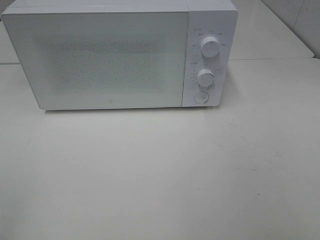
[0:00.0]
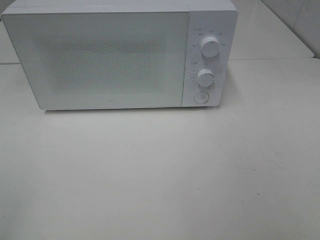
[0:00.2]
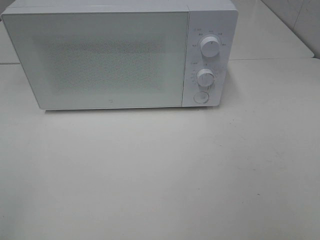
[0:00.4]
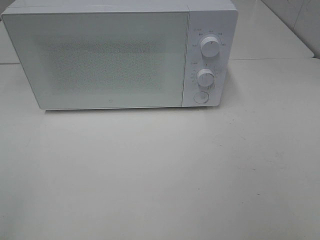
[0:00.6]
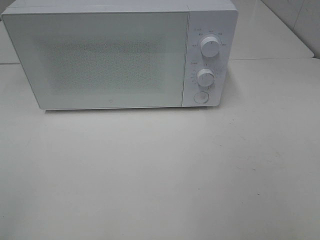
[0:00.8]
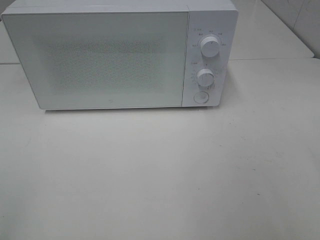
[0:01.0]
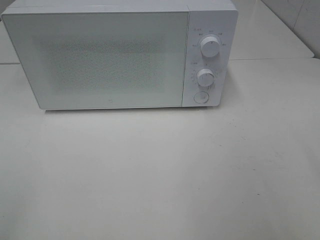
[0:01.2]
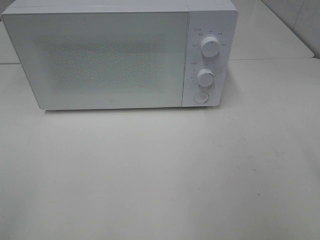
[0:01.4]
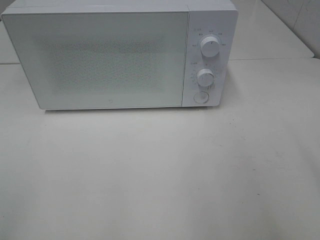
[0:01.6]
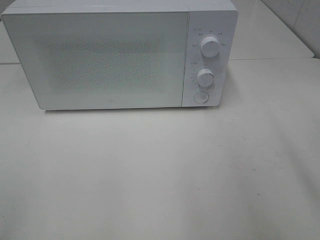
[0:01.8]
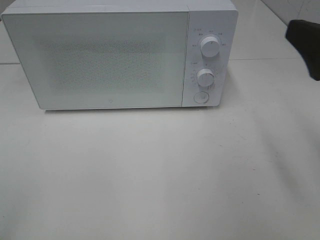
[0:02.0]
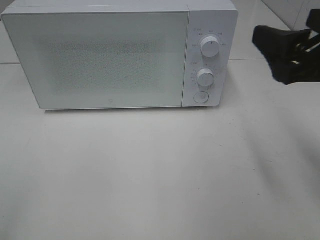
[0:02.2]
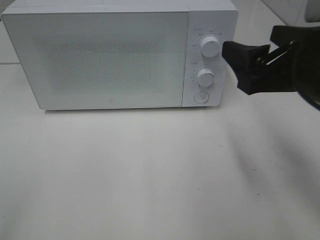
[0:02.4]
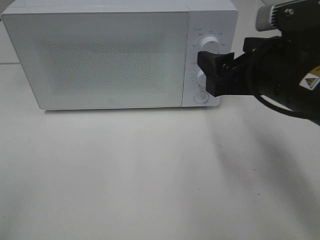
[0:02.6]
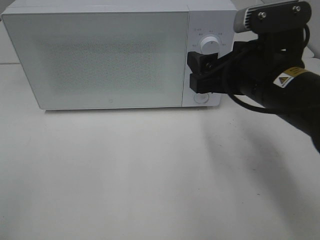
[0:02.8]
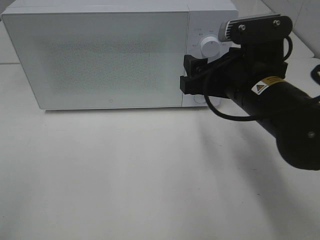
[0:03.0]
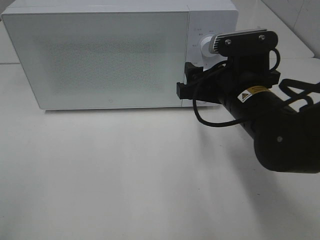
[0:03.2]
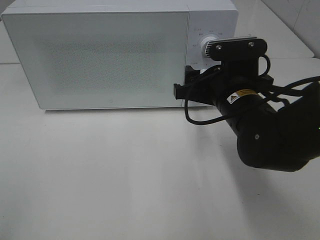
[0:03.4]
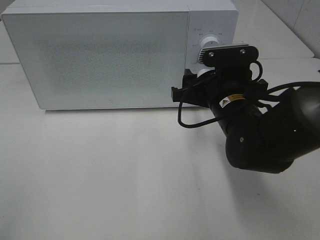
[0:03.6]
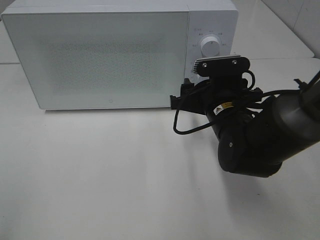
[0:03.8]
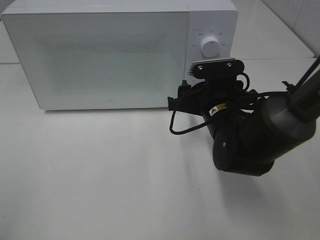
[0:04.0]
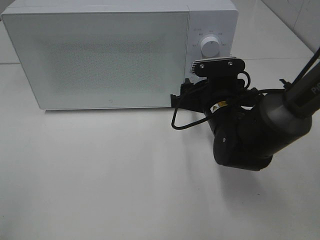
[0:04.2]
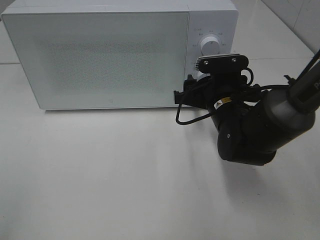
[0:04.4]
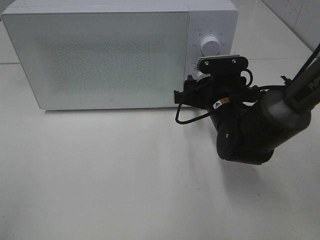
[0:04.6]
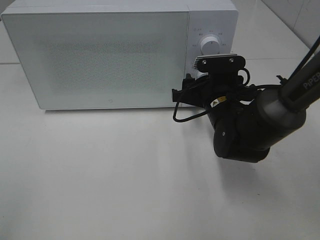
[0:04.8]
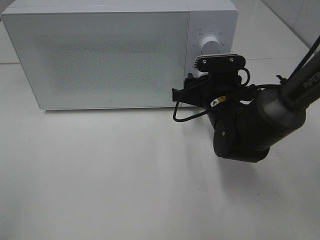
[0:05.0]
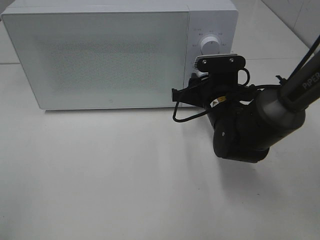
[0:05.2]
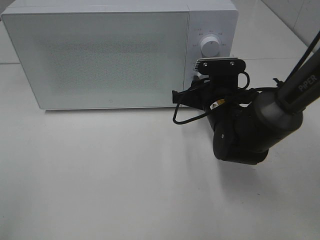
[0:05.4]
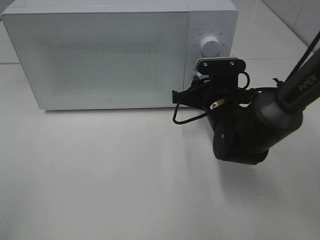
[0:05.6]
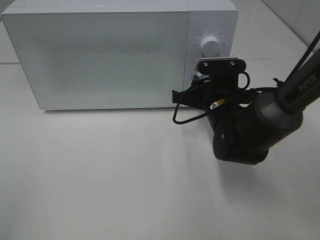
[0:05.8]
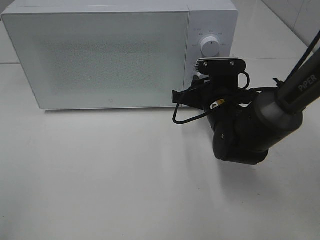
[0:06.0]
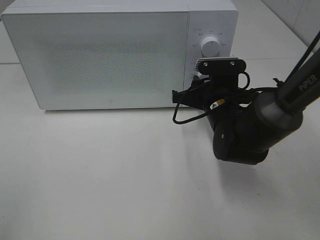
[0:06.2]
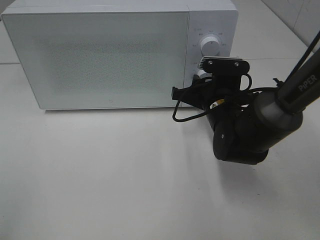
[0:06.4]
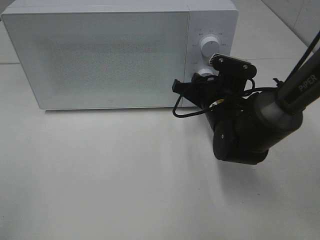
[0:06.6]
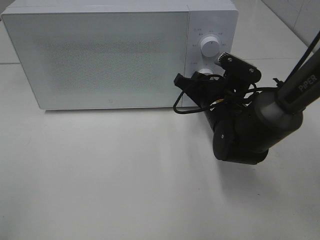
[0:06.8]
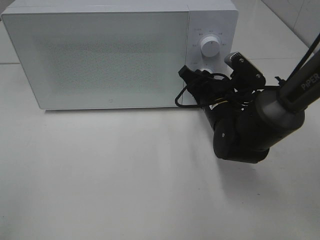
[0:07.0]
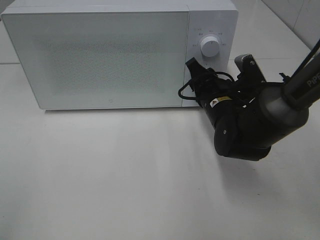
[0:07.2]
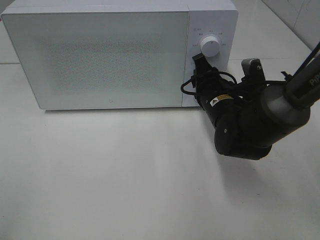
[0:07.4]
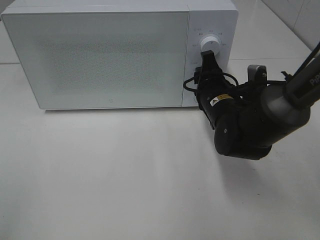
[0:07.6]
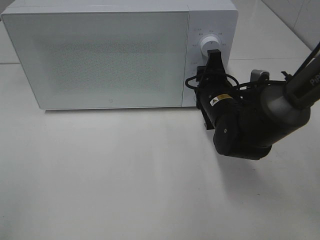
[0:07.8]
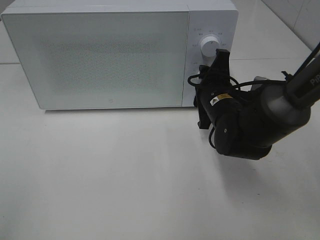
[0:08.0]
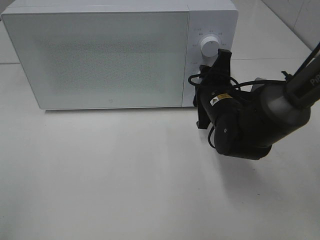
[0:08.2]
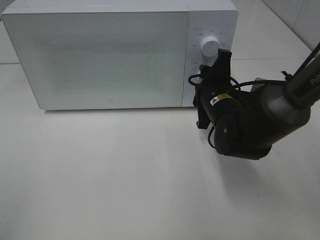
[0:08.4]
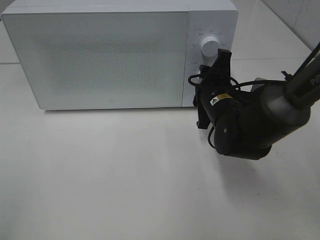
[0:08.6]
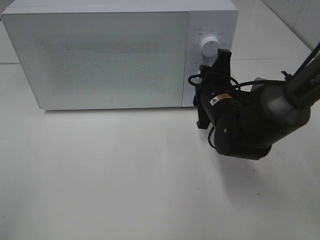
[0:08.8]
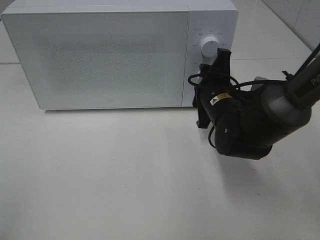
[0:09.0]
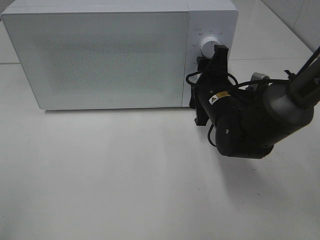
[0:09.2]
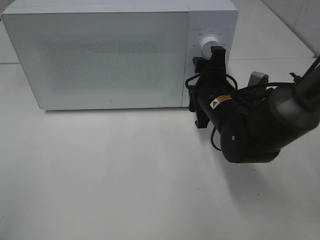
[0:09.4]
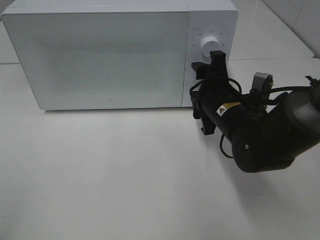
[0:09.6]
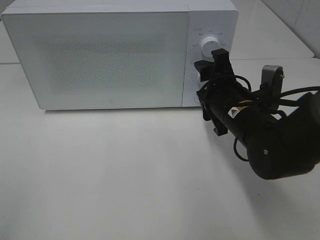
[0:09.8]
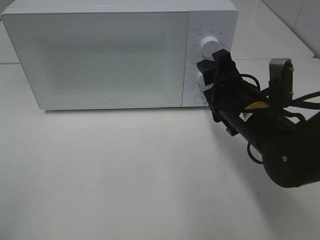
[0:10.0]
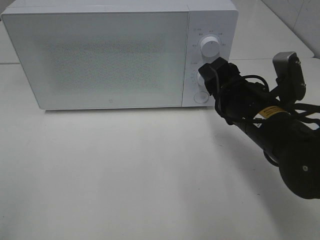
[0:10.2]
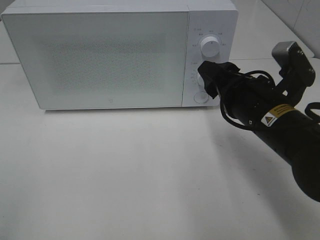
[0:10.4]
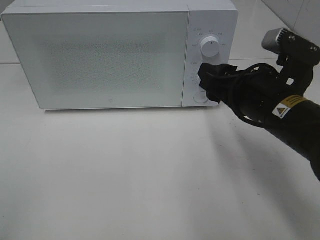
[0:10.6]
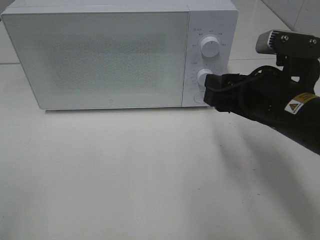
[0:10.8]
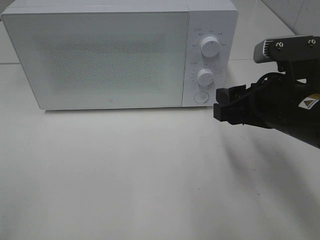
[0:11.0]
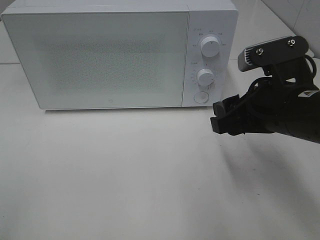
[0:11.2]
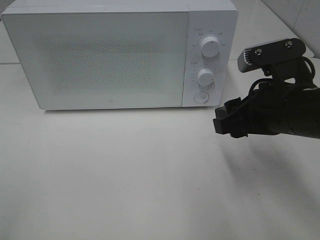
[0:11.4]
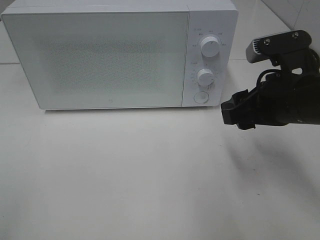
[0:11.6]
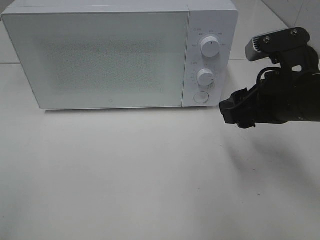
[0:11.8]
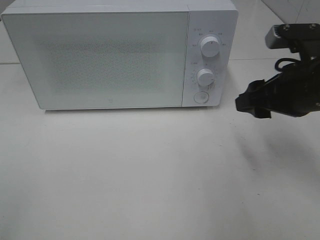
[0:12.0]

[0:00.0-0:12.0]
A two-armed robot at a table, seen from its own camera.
Task of the whole recording: Heat Sandwich.
Step, 0:00.0 to 0:09.8: Right hand: twist timer button.
0:01.6 to 0:03.0: The right gripper heads forward, to the left and downward, covering approximately 25 cm.
0:03.0 to 0:04.4: The right gripper shifts roughly 10 cm downward and forward.
0:04.4 to 0:06.0: The right gripper closes its fingers.
0:09.0 to 0:10.4: The right gripper travels backward and upward by roughly 10 cm.
0:10.4 to 0:12.0: The right gripper goes about 5 cm to the right.

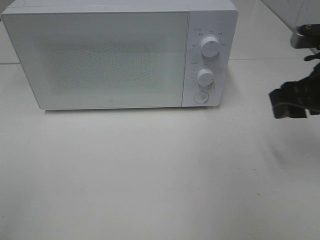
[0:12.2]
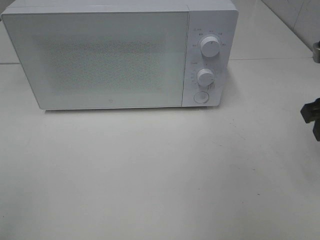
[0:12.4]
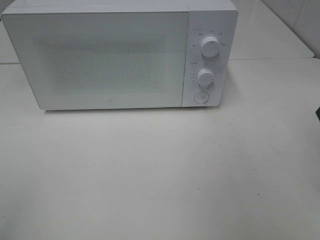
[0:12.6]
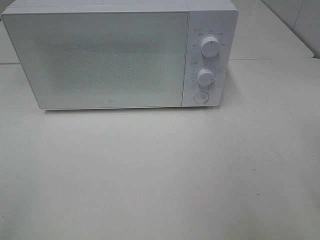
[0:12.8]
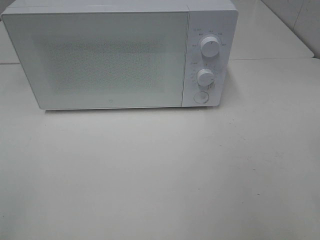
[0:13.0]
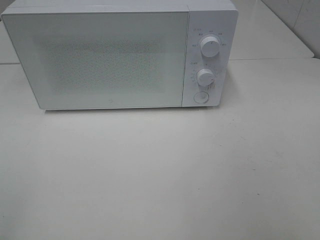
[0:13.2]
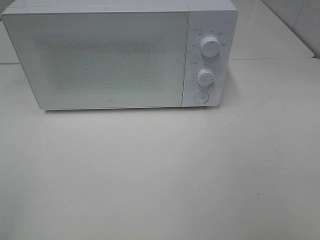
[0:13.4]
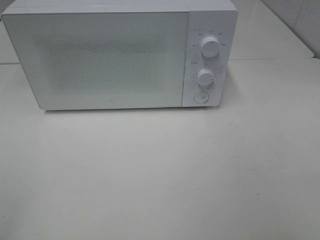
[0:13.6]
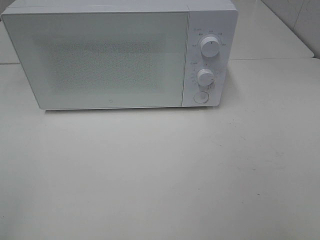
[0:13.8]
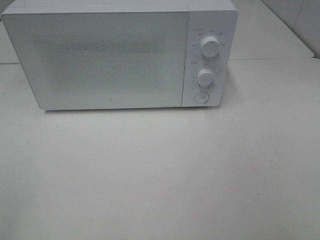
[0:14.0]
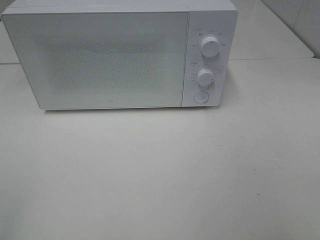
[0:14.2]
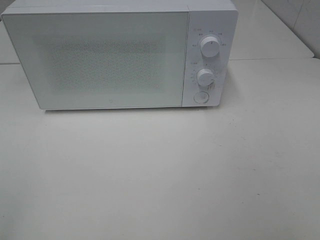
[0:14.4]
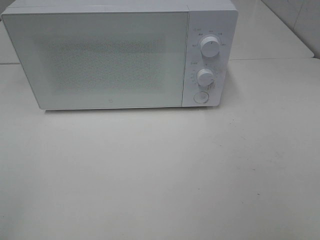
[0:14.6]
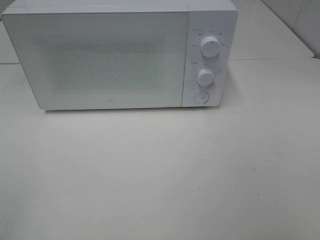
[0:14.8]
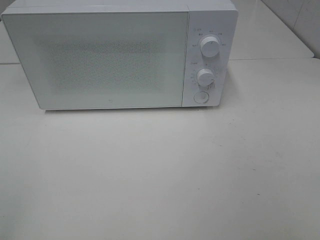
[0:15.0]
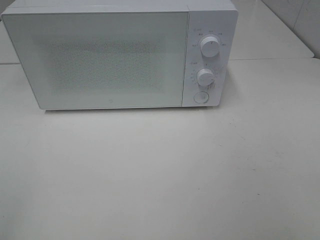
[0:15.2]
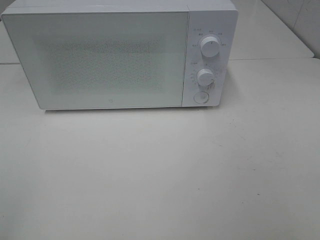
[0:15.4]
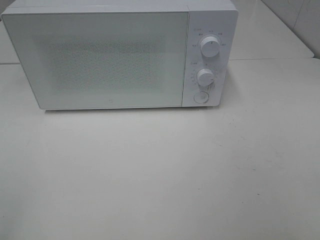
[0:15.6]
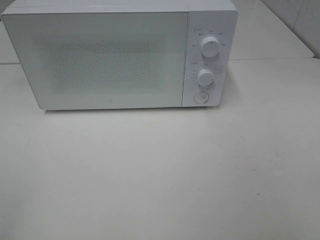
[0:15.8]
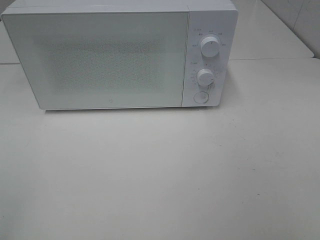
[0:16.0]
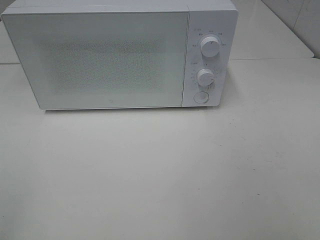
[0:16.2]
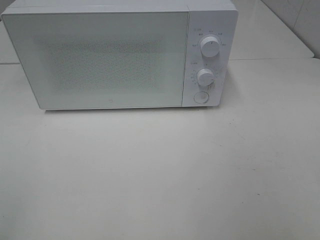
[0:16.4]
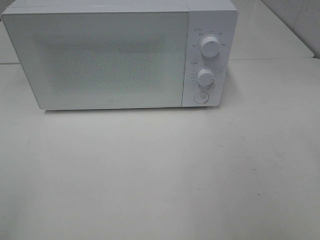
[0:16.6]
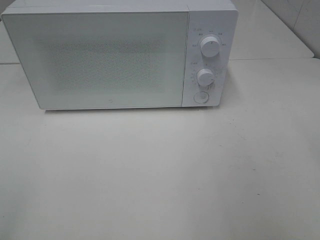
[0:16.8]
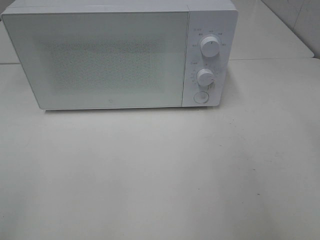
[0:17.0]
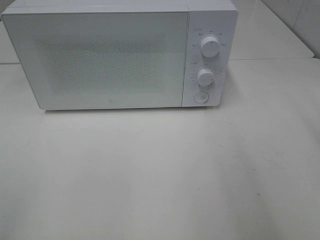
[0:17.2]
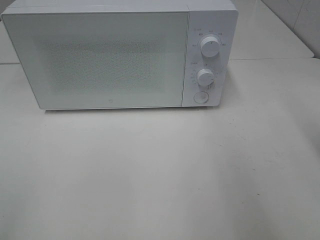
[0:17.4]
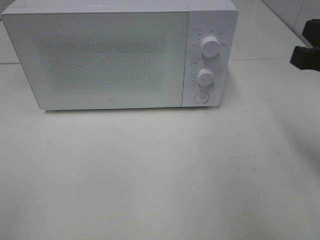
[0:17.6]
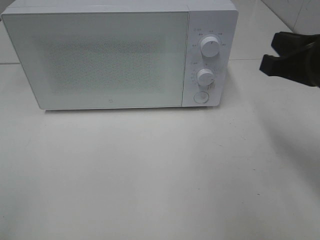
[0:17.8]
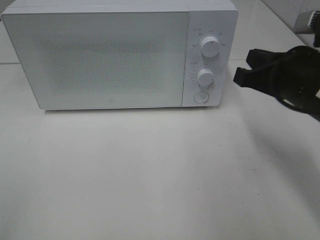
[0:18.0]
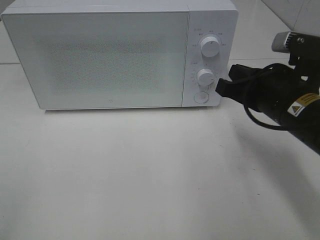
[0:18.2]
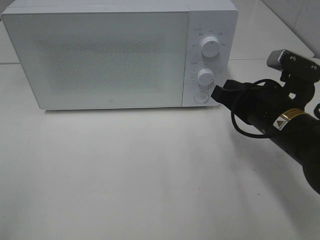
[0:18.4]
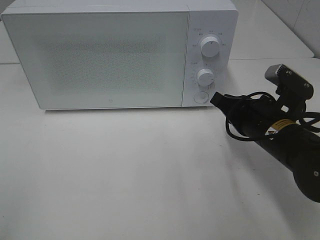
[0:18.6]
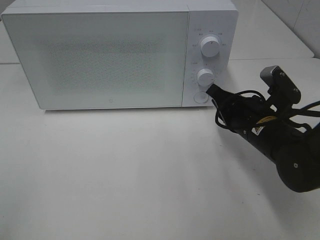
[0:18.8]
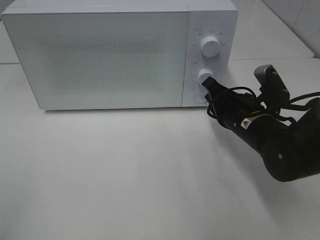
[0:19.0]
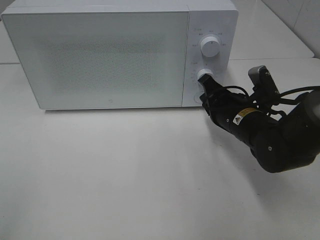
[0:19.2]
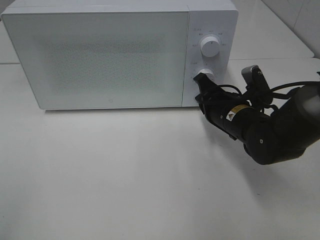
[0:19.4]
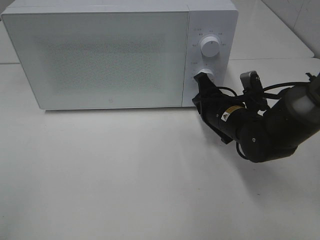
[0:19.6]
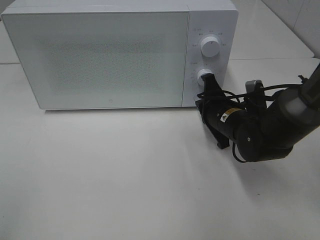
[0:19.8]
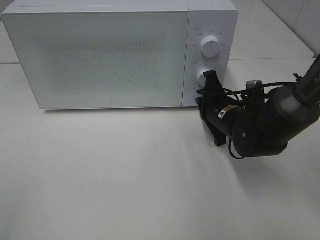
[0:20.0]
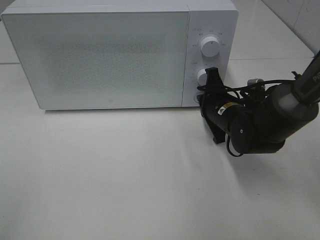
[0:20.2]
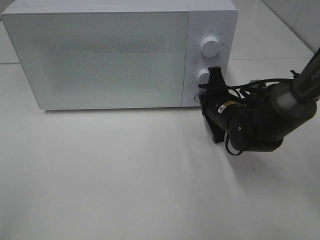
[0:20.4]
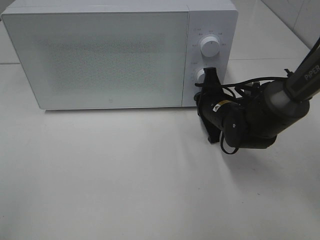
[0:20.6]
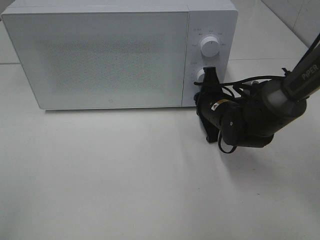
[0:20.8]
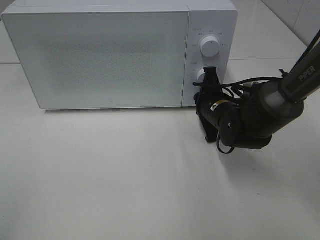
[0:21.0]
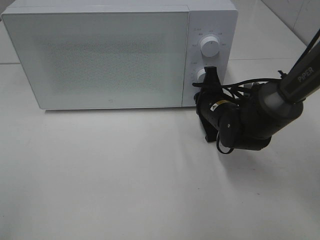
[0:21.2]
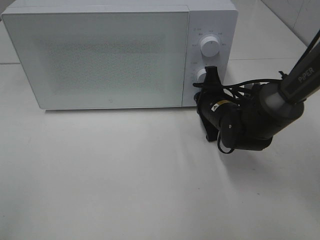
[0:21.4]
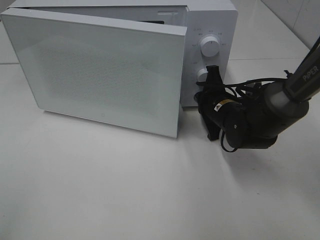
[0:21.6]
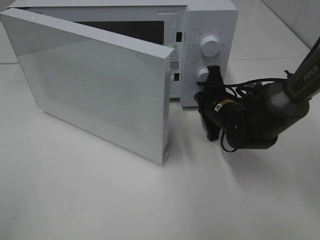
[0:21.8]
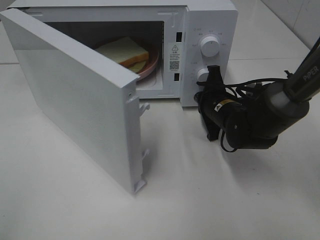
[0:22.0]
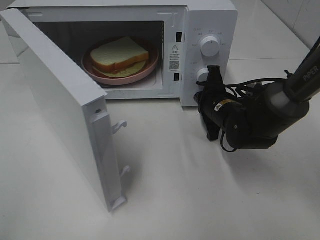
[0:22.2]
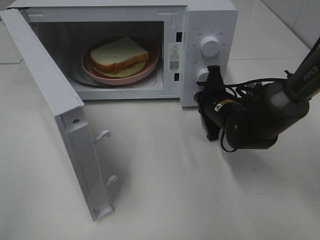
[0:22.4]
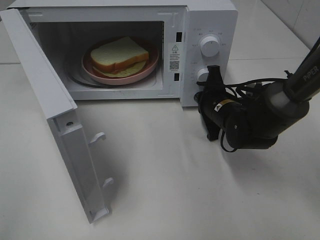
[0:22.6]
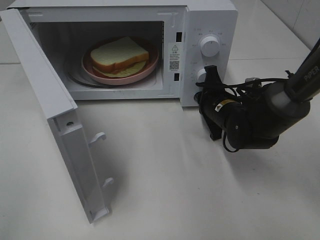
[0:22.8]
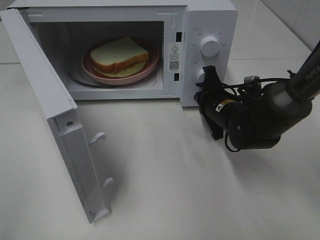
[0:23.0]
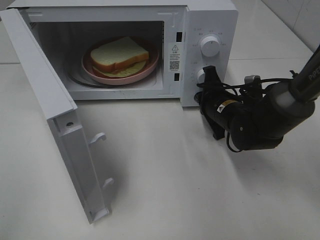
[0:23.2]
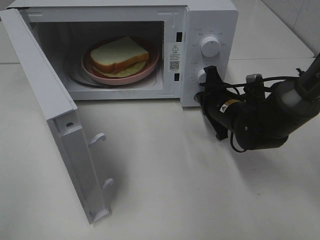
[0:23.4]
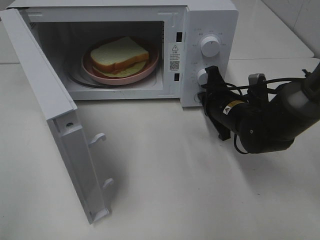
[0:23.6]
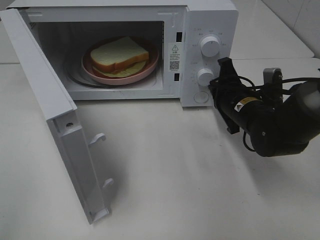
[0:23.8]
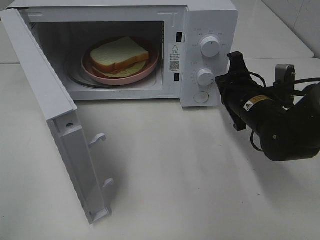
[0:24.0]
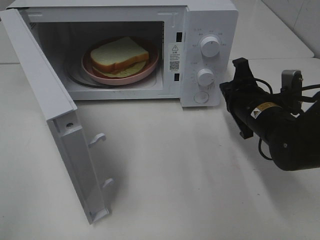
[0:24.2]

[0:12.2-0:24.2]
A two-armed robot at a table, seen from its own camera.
Task of the whole recording: Heat Sandwich.
Step, 0:12.2 to 0:23.6: Right hand: press the switch.
0:12.2 to 0:13.8: The right gripper moves backward, about 25 cm.
0:13.8 to 0:15.2: The two grippers keep their place.
0:16.6 to 0:18.2: The right gripper shifts roughly 25 cm forward, downward and to the left, and closes up.
0:18.2 to 0:19.8: The right gripper moves downward and forward, roughly 15 cm.
0:19.8 to 0:21.2: The grippers move only a little.
0:22.6 to 0:24.2: The right gripper goes some 5 cm backward.
